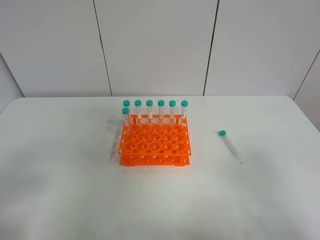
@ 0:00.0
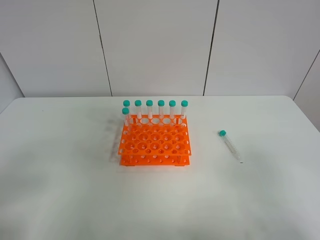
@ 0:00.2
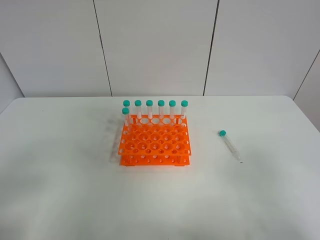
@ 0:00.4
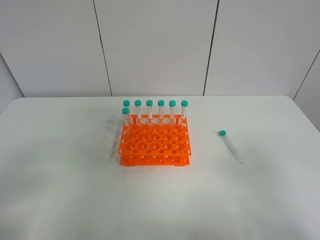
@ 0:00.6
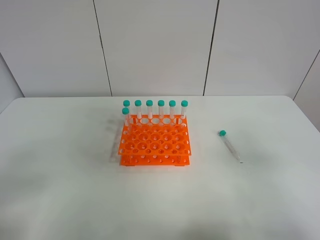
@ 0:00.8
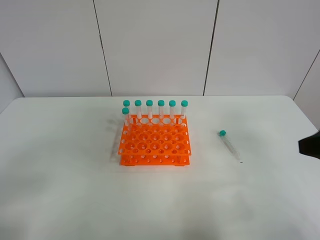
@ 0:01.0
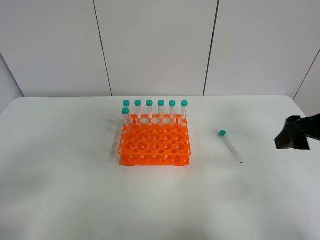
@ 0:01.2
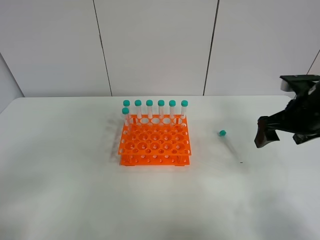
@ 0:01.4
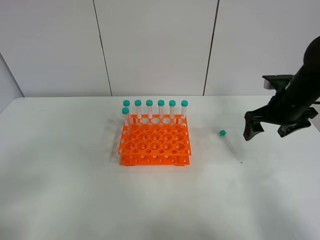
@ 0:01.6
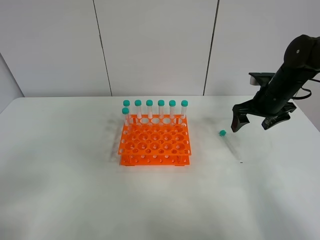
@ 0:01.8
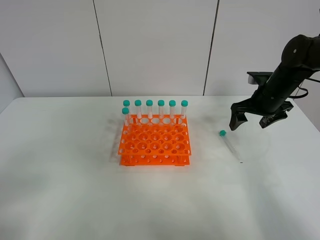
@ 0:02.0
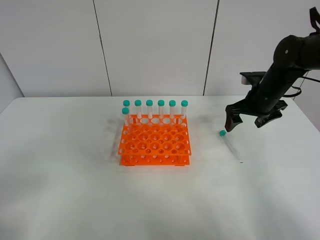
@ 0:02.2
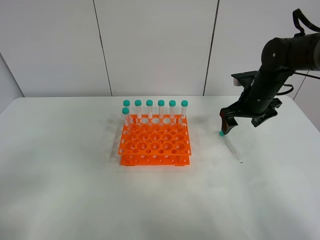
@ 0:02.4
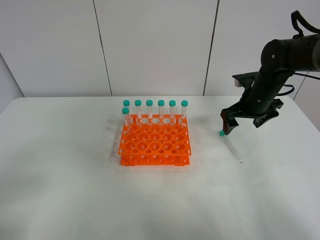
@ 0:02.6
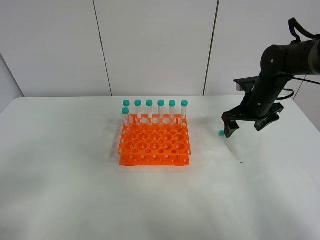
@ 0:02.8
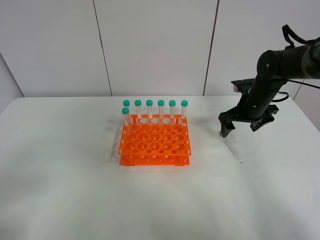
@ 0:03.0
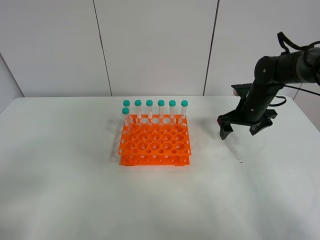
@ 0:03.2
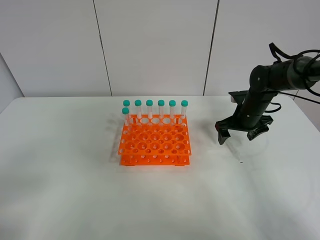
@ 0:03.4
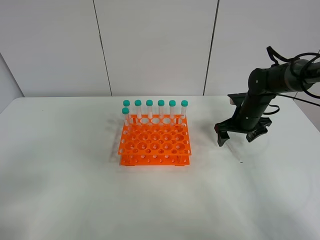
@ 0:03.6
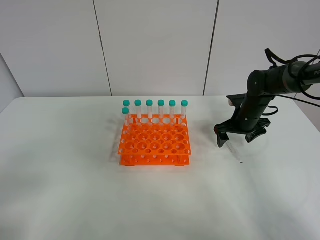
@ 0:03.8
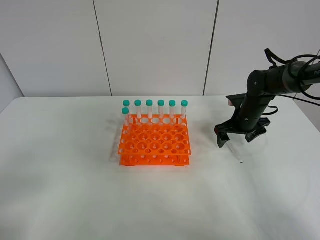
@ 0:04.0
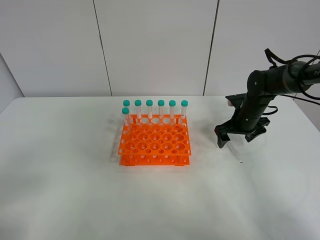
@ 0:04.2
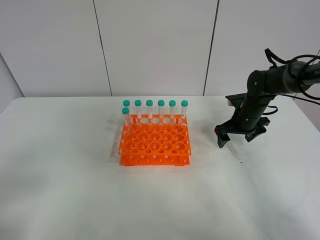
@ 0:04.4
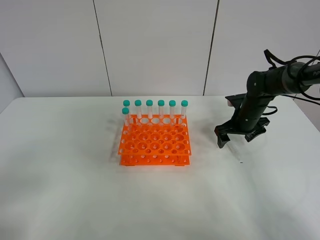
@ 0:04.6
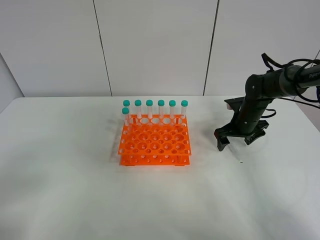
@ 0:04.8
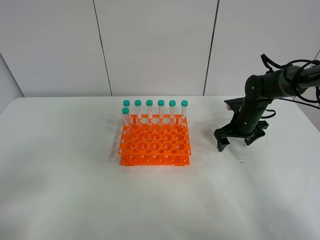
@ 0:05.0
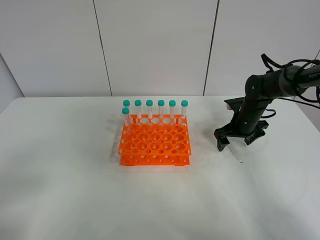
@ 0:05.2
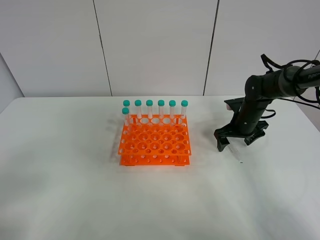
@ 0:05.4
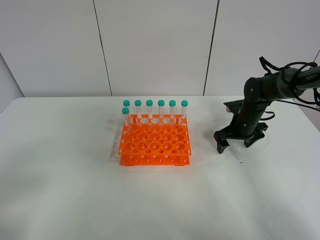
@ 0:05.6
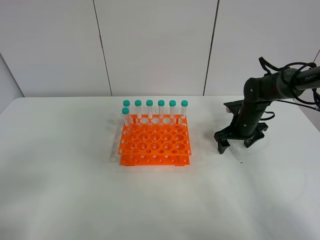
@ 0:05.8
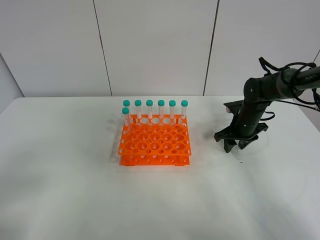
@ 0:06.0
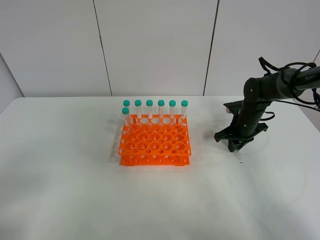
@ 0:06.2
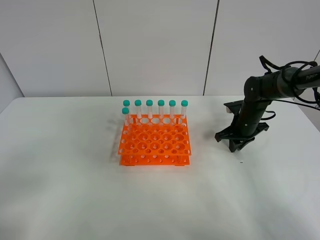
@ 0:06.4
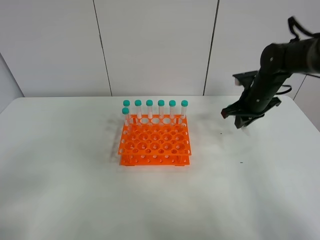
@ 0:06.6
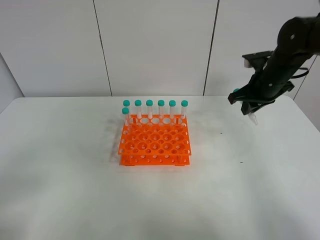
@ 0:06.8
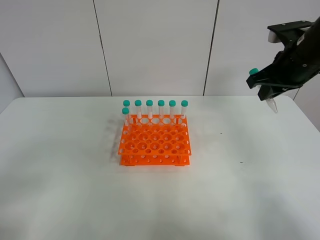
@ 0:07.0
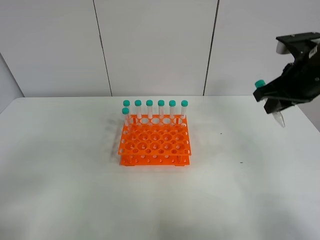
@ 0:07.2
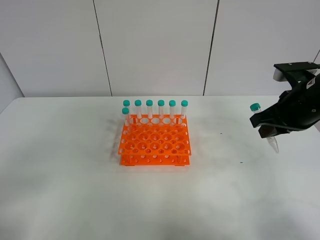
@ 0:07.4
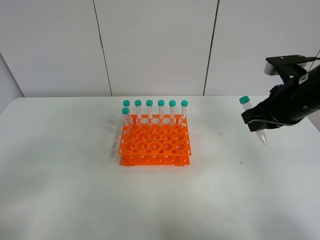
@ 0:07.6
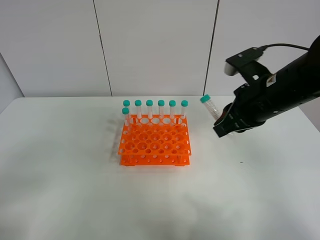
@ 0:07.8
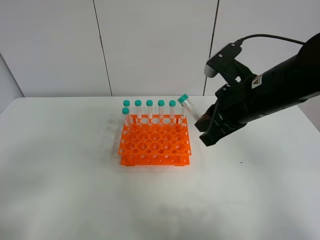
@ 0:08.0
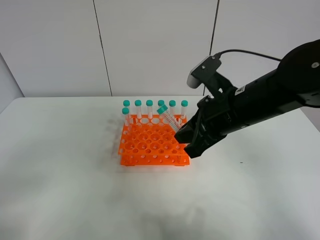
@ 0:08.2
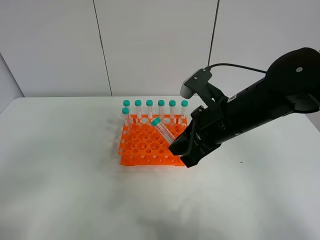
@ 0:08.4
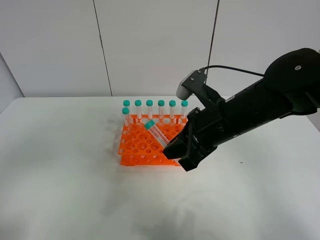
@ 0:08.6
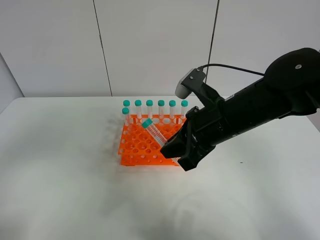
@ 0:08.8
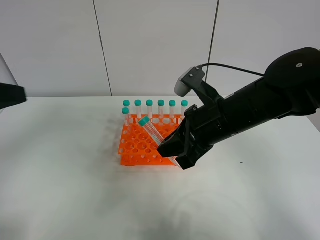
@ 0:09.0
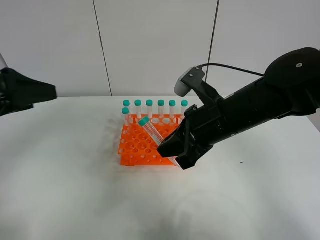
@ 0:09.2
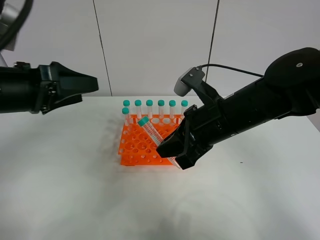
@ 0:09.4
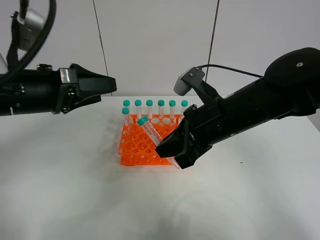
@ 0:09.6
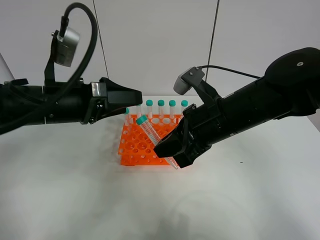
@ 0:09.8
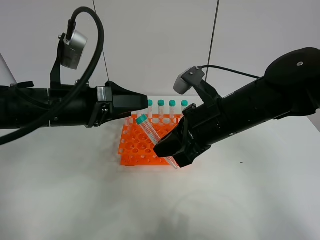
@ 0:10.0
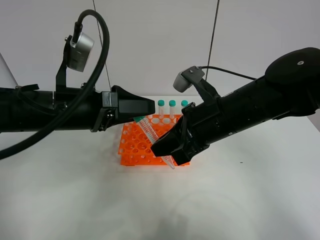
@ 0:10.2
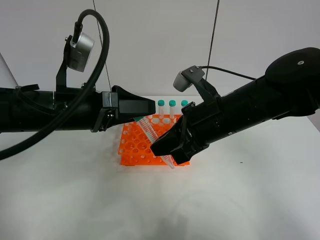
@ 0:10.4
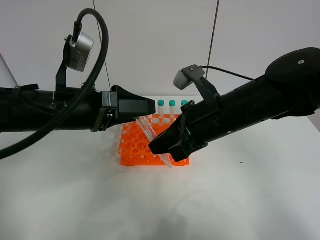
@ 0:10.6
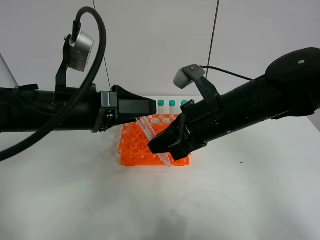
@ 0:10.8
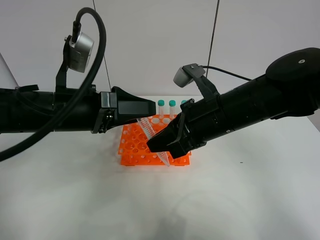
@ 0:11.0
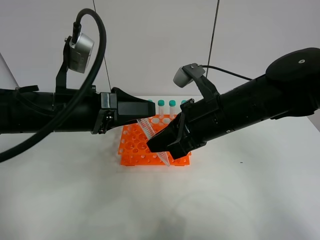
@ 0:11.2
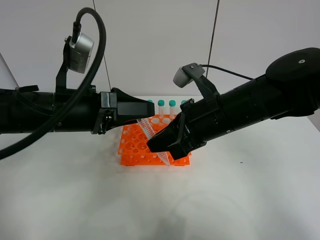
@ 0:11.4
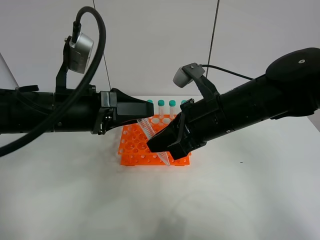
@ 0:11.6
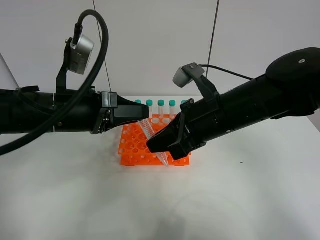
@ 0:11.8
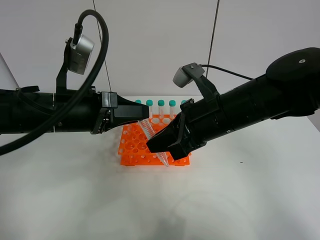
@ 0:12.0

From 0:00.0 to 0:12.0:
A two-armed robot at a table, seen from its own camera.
Task of the whole recording: Put the test tube on the table back onto the test tube rack.
Step, from 0:00.0 to 0:06.2: Pick up the test tube with the right gripper.
From 0:00.0 to 0:01.6: The right gripper travels forward by roughly 35 cm.
From 0:01.6 to 0:03.0: The right gripper goes about 5 cm forward.
From 0:03.0 to 0:04.4: The right gripper moves roughly 5 cm.
From 0:04.4 to 0:06.0: The right gripper closes up.
From 0:06.0 to 0:07.6: The right gripper moves upward and backward, some 25 cm.
From 0:07.6 to 0:09.0: The left gripper heads forward and upward, covering approximately 15 cm. Meanwhile the right gripper travels to the left by roughly 10 cm.
From 0:09.0 to 0:10.4: The left gripper travels to the right, downward and forward by approximately 15 cm.
From 0:10.4 to 0:12.0: The left gripper closes up.

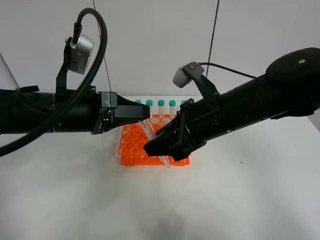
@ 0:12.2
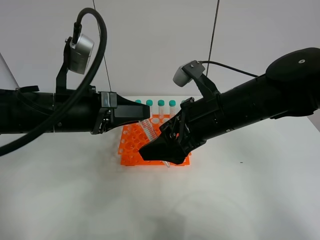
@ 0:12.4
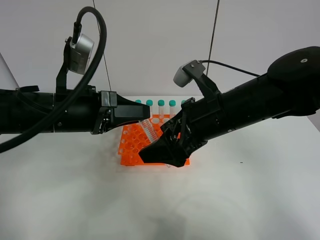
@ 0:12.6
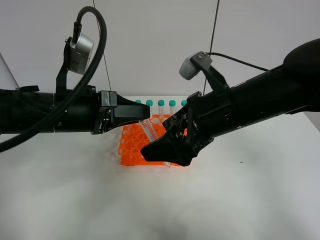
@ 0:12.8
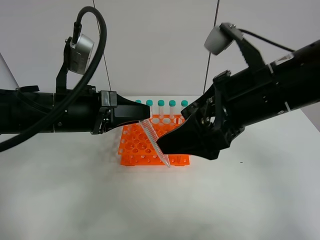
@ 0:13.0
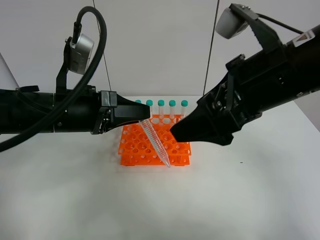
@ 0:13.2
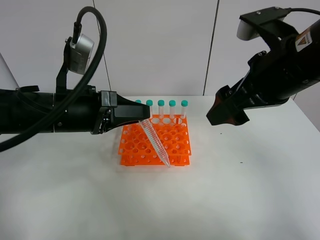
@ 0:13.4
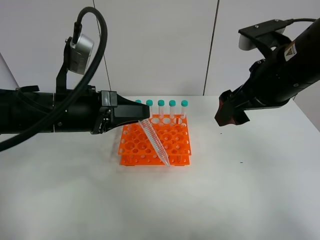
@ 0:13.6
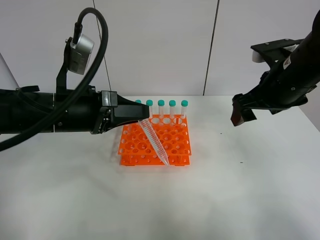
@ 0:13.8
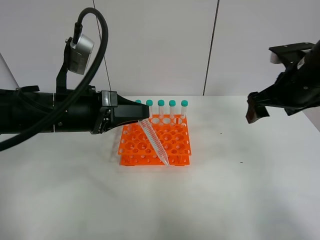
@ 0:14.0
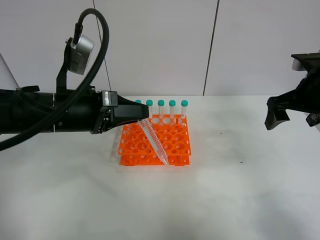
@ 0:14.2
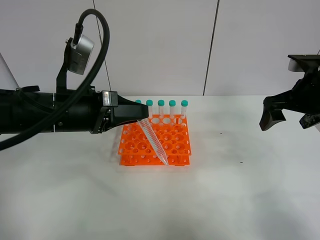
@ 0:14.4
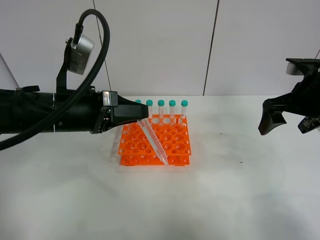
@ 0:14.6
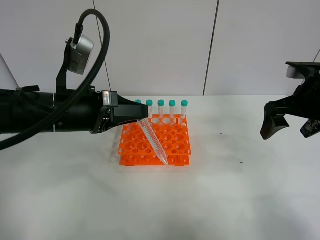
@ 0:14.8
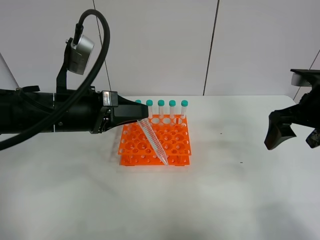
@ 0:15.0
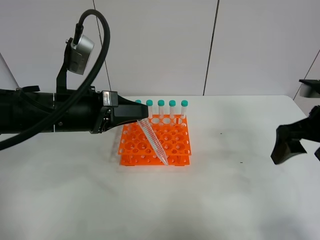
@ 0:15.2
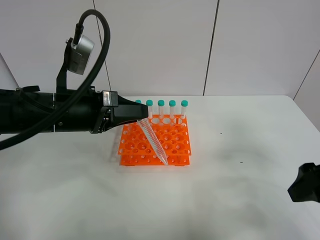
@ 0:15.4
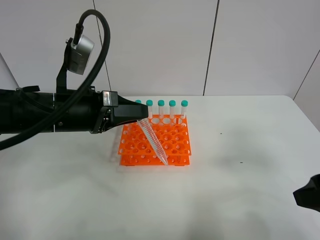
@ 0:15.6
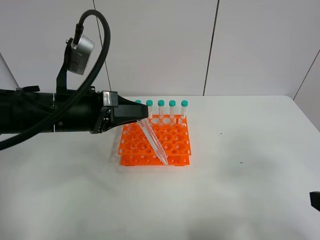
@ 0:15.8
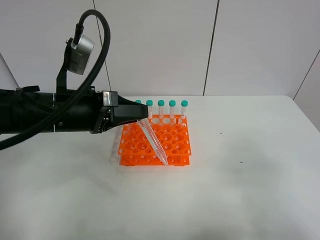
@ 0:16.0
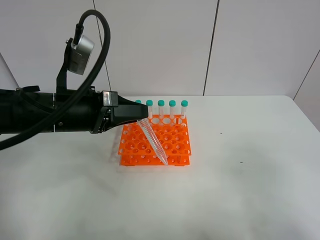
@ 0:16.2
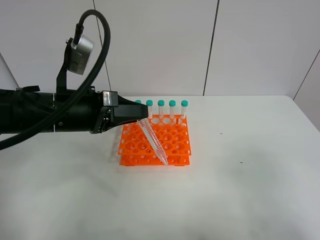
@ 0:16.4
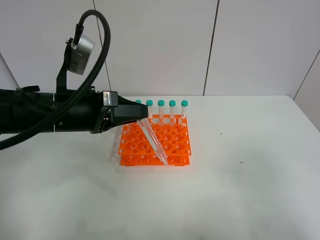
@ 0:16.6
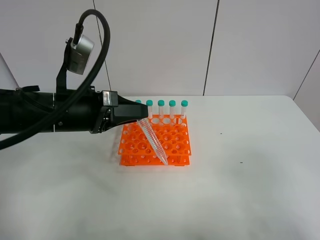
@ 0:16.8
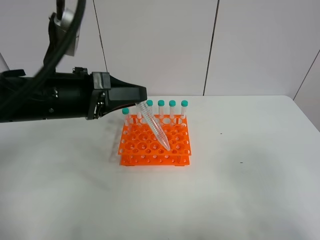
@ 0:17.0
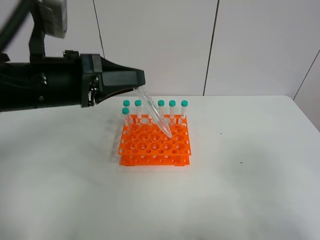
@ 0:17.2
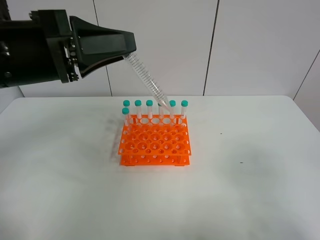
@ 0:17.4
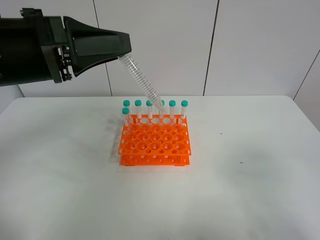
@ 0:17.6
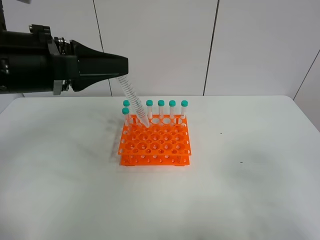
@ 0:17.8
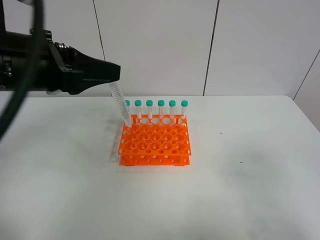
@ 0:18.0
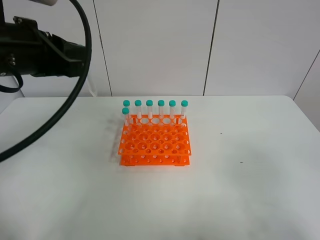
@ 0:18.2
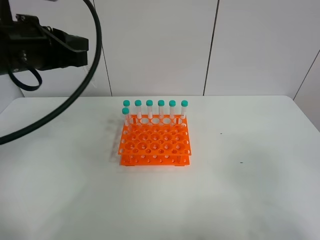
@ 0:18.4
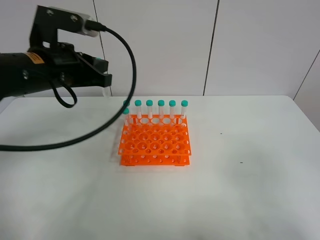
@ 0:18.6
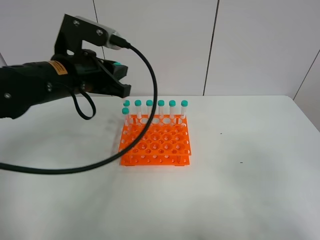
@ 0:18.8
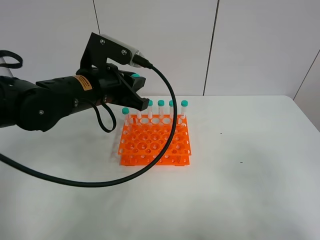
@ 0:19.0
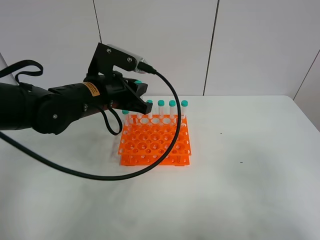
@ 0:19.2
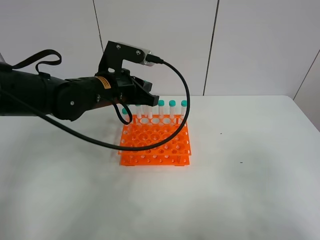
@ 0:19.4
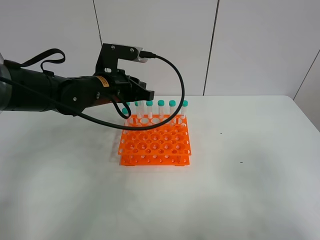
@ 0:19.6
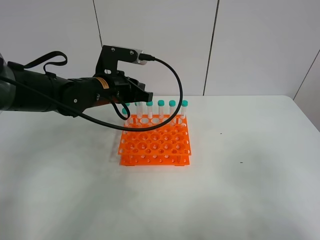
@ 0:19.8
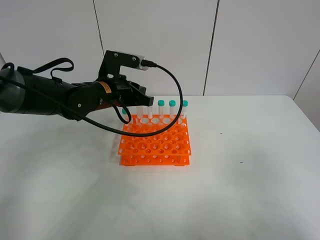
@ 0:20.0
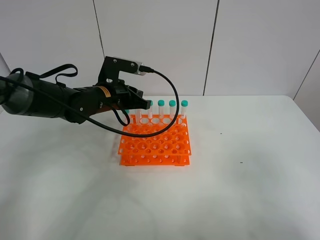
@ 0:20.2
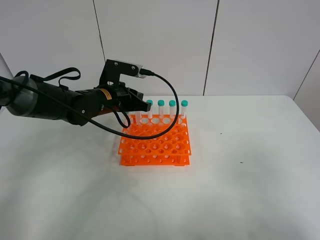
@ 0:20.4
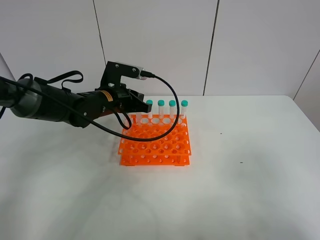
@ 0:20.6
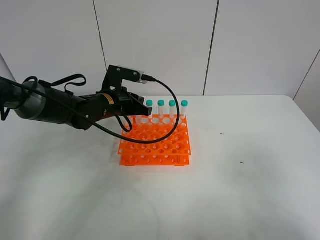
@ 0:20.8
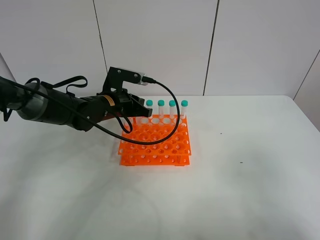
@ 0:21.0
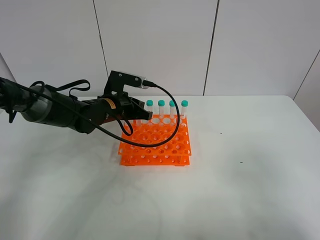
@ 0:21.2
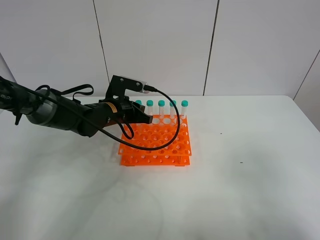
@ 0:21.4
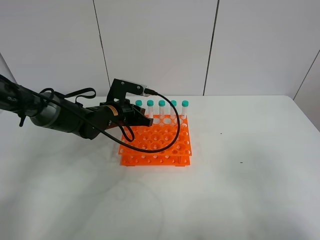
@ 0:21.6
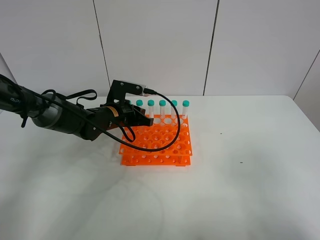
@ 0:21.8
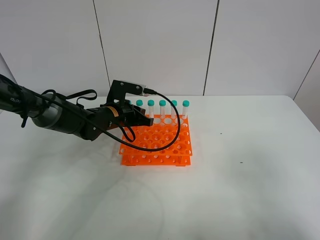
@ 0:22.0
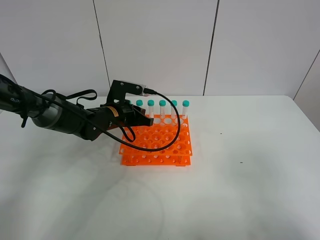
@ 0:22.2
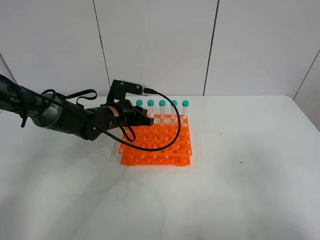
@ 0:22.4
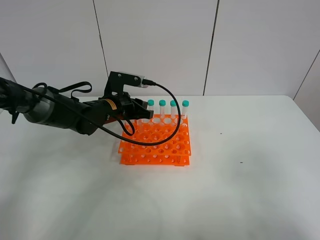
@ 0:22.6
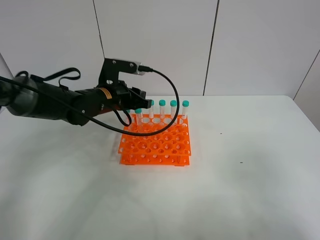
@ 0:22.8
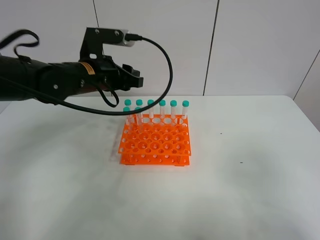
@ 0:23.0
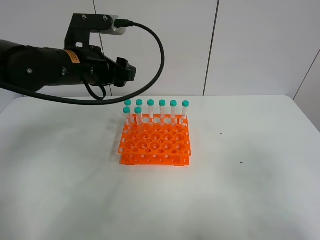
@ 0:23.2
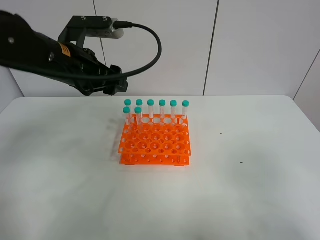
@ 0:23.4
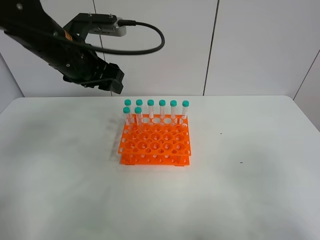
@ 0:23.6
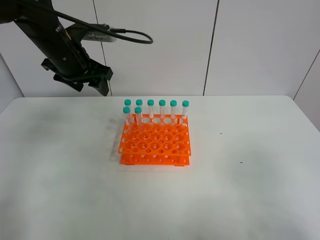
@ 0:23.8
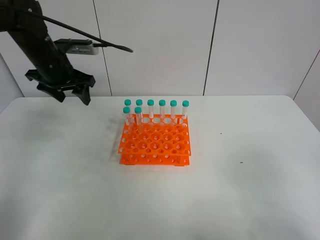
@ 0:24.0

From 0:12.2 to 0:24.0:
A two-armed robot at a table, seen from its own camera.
Task of the whole recording: Put the test tube on the table back onto the test tube rack.
Step, from 0:12.6 to 0:22.4: Place the test tube on the test tube rack with the left gripper.
From 0:12.2 to 0:13.6: The right gripper heads to the right and upward, covering approximately 10 cm, and opens up.
From 0:13.6 to 0:15.2: The right gripper moves to the right, some 10 cm.
From 0:15.2 to 0:16.6: The right gripper moves backward, roughly 20 cm.
From 0:16.6 to 0:18.2: The left gripper moves upward, roughly 10 cm.
From 0:18.2 to 0:19.6: The left gripper travels downward, forward and to the right by roughly 20 cm.
From 0:19.6 to 0:21.0: The left gripper shifts roughly 5 cm downward.
From 0:21.0 to 0:22.6: The left gripper opens up.
From 0:22.6 to 0:24.0: The left gripper moves to the left and upward, roughly 15 cm, and opens up.
